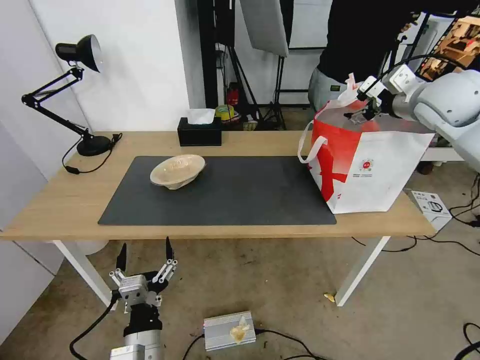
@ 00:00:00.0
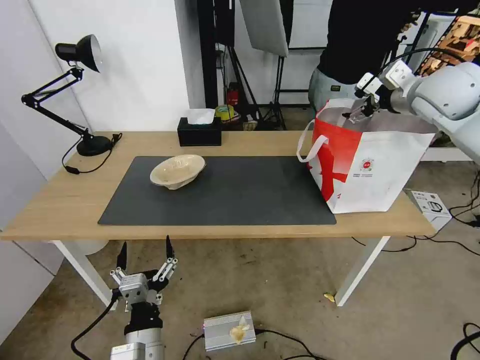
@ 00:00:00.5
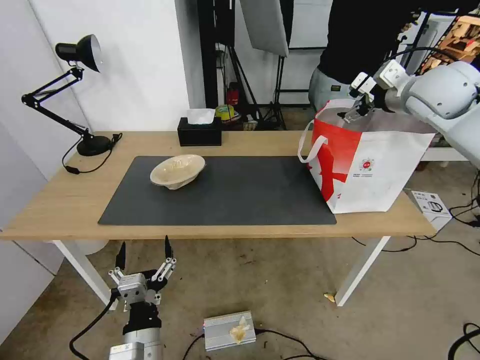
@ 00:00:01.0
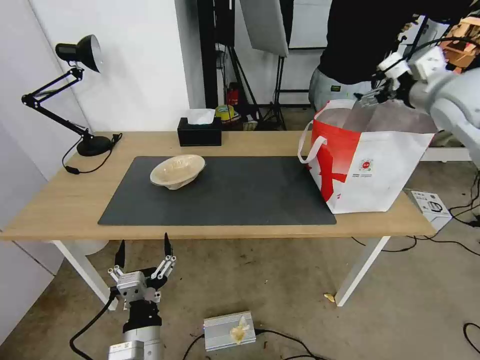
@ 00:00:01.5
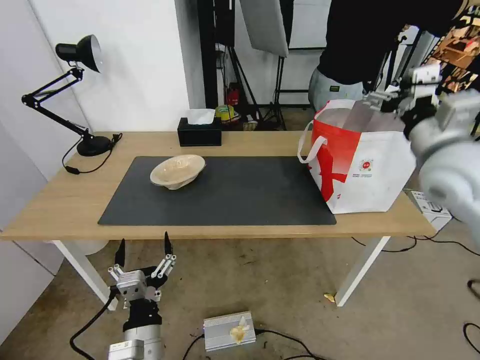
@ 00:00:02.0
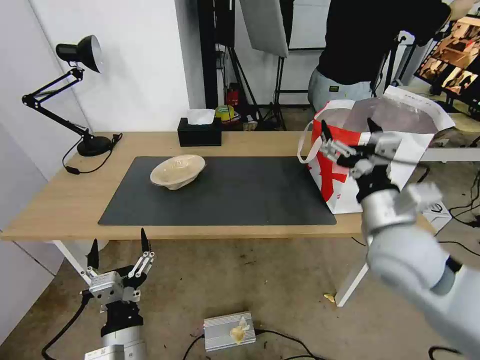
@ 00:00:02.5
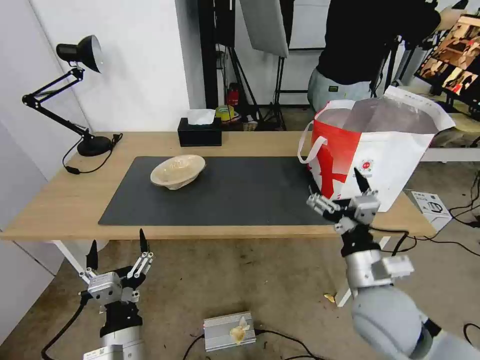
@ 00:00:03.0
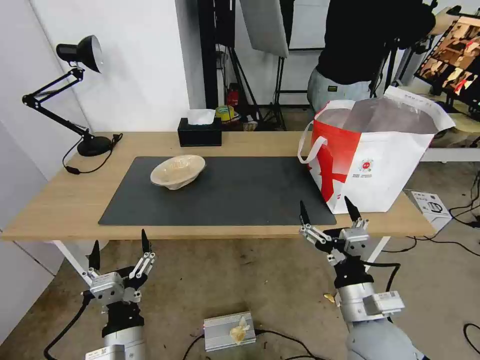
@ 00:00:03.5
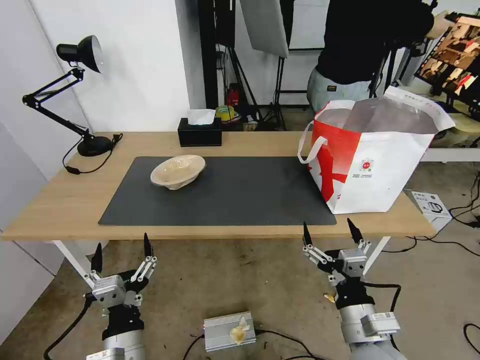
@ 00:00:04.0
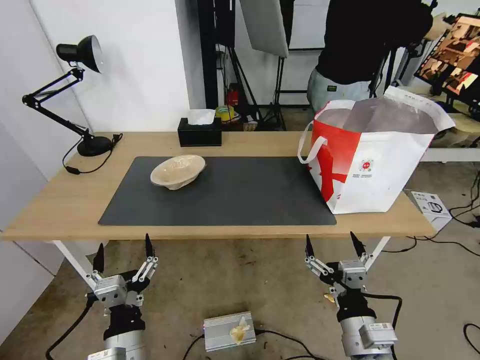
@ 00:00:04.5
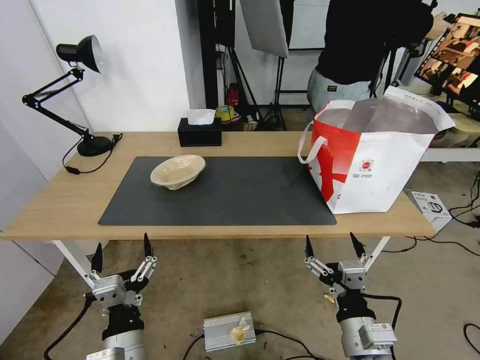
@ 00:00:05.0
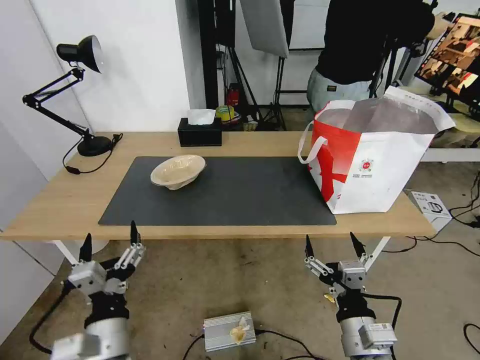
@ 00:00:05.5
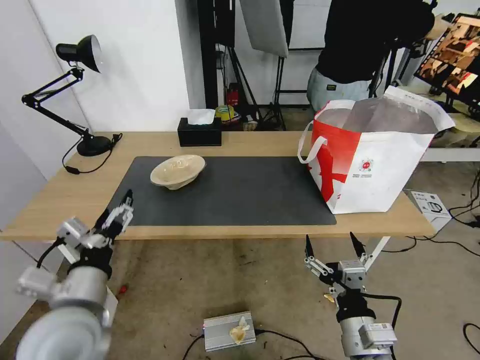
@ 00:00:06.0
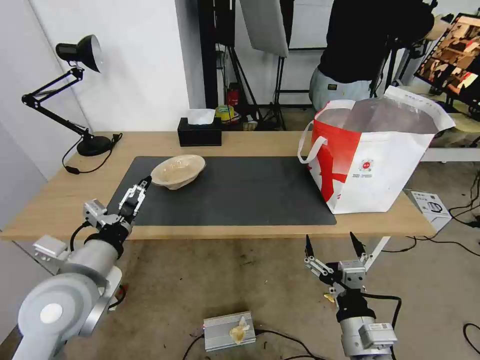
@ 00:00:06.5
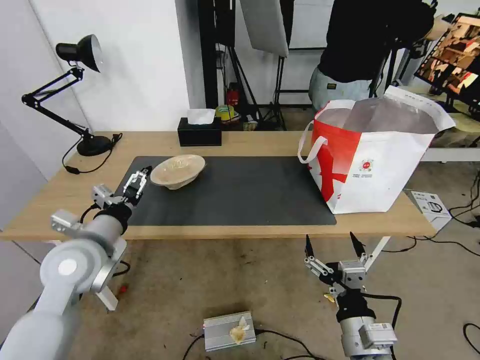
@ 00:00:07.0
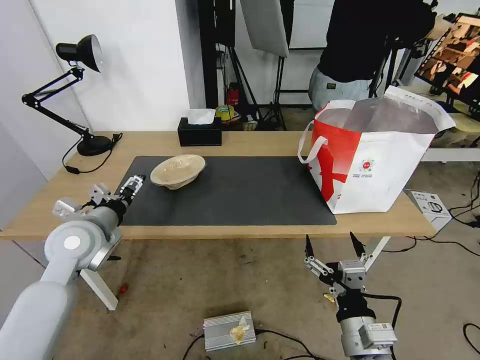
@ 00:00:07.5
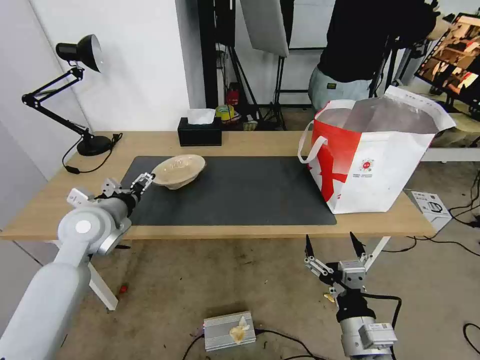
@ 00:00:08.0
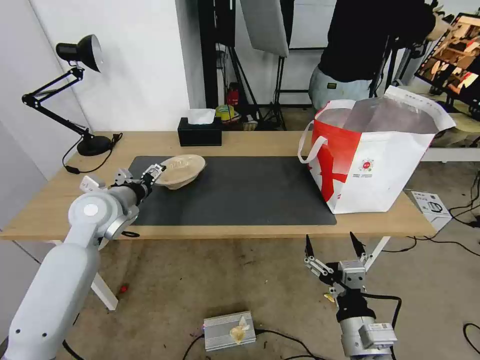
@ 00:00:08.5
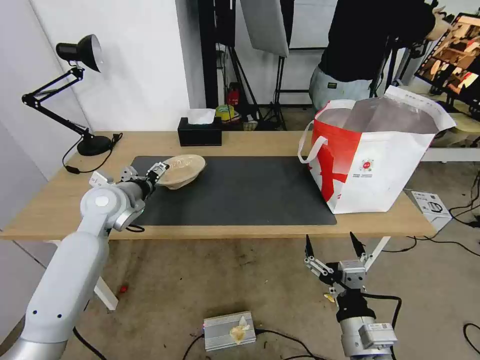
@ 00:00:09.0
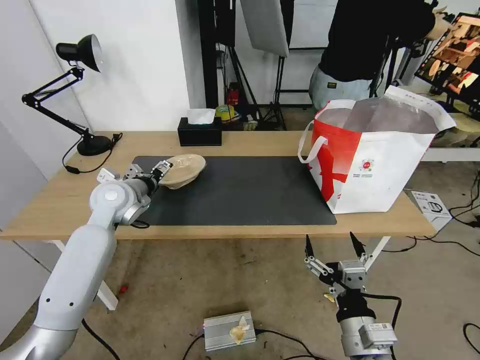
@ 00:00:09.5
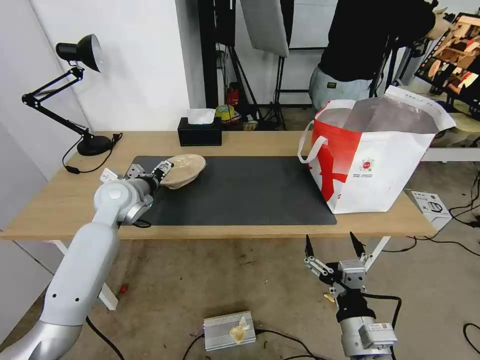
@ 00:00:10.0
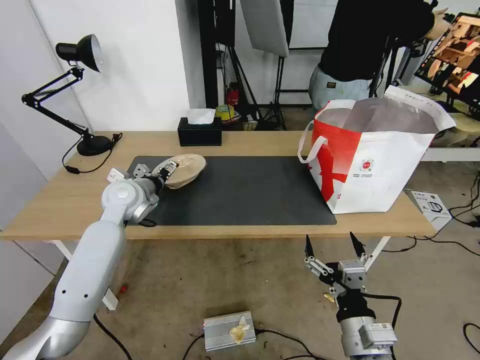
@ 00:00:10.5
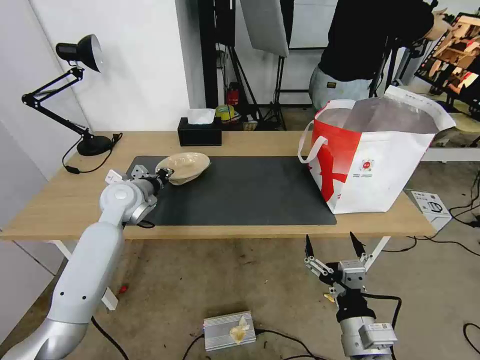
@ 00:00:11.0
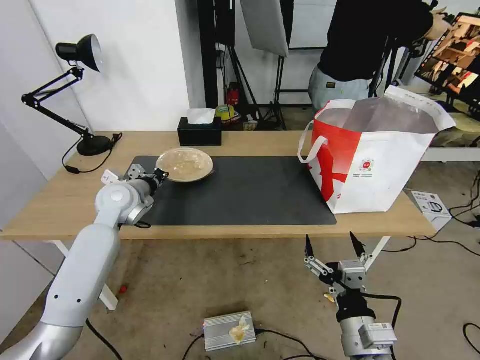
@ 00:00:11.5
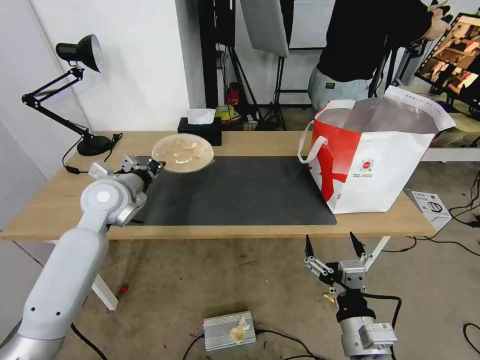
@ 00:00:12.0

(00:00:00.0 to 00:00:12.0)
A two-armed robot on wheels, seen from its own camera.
Task of the whole recording: Pick up the trash from the table and place it into the takeout bag.
00:00:00.0 - 00:00:02.0: The right gripper goes some 15 cm backward.
00:00:02.0 - 00:00:04.0: The right gripper heads downward, backward and to the left, covering some 35 cm.
00:00:04.0 - 00:00:06.0: The left gripper shifts about 15 cm upward, to the left and forward.
00:00:06.0 - 00:00:08.0: The left gripper travels forward by approximately 20 cm.
00:00:08.0 - 00:00:10.0: The left gripper moves forward, some 10 cm.
00:00:10.0 - 00:00:12.0: The left gripper closes up.

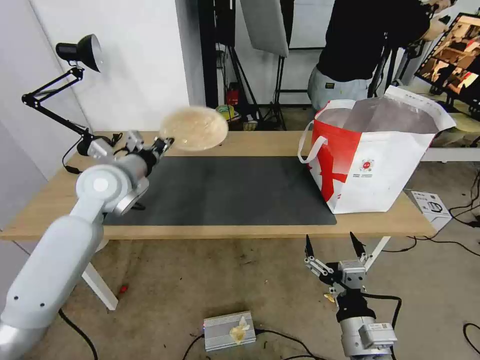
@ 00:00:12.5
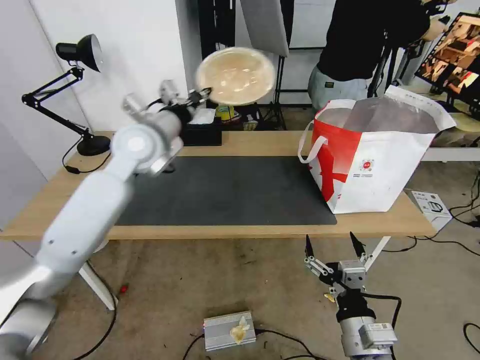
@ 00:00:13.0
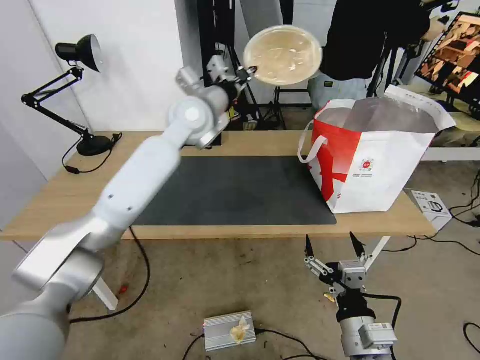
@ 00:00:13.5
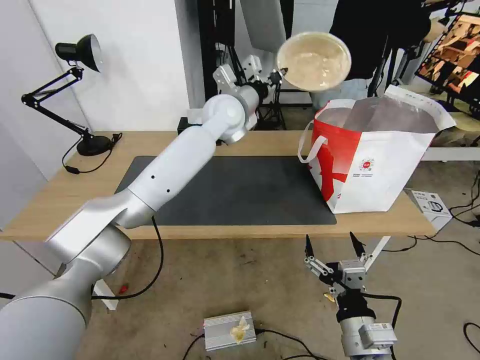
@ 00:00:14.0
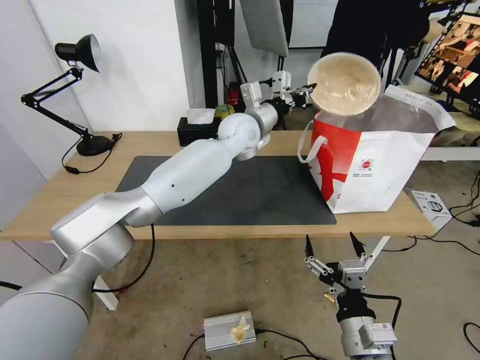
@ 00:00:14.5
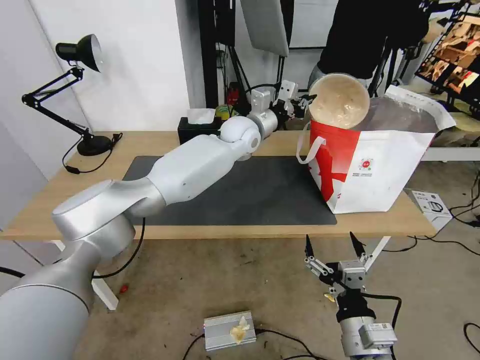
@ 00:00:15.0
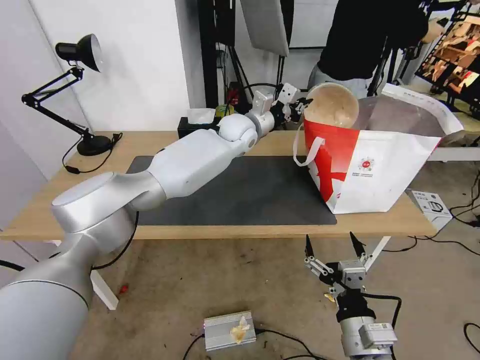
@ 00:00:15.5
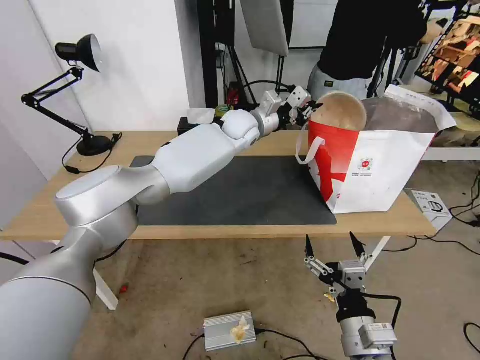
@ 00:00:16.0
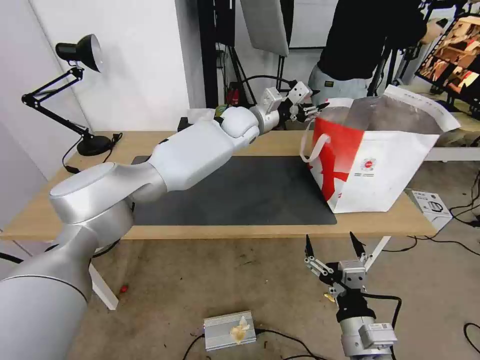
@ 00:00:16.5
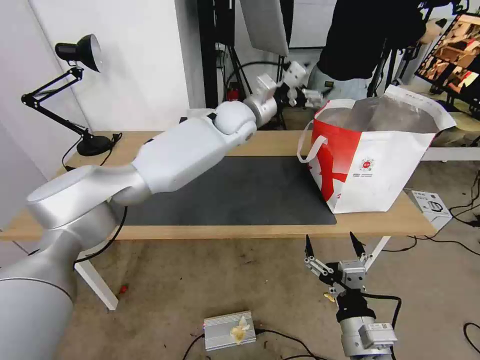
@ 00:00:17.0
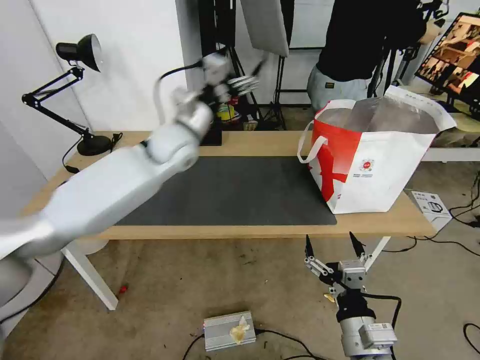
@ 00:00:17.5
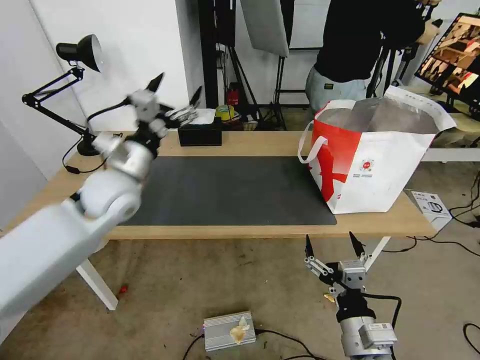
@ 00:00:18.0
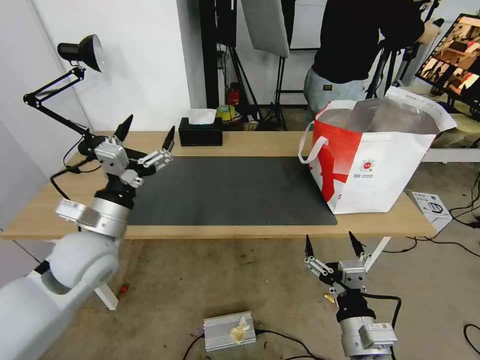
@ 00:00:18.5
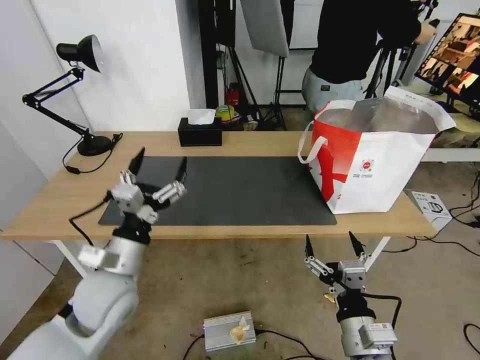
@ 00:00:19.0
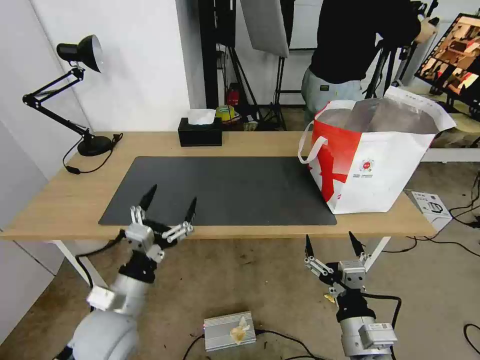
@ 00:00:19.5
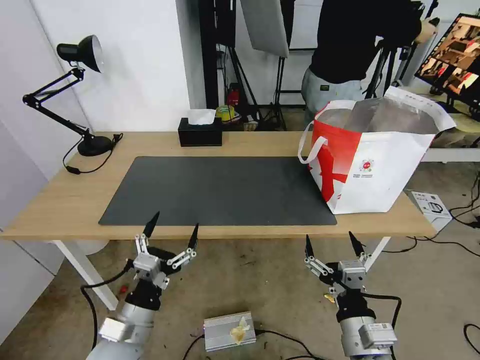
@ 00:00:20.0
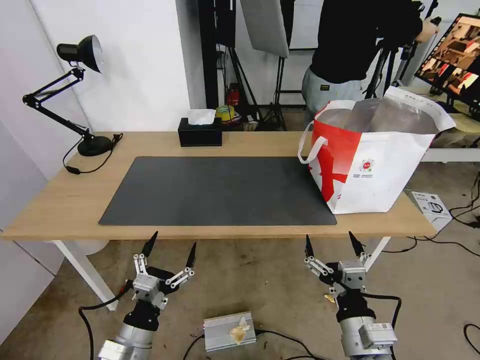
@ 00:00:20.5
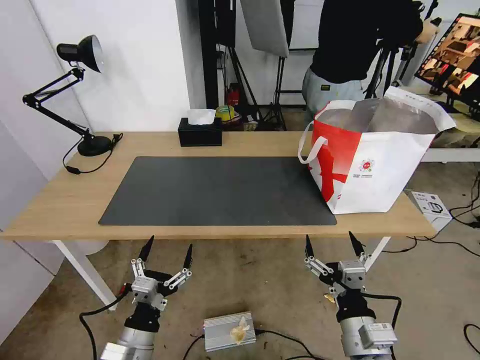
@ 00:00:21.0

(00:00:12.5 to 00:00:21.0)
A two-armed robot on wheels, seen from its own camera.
Task of the whole recording: Pick up the trash from the table and place it into the takeout bag.
00:00:12.5 - 00:00:14.5: The left gripper goes about 30 cm to the right and forward.
00:00:14.5 - 00:00:16.5: The left gripper opens its fingers.
00:00:16.5 - 00:00:19.0: The left gripper is displaced backward and to the left by about 40 cm, and opens its fingers.
00:00:19.0 - 00:00:21.0: The left gripper heads downward and backward, covering roughly 20 cm.
